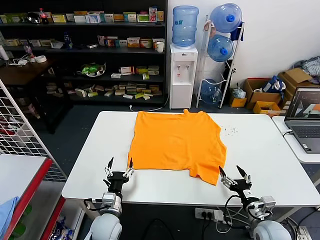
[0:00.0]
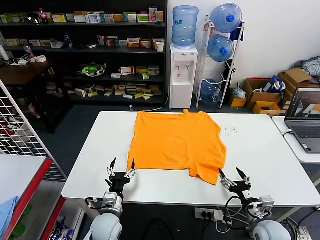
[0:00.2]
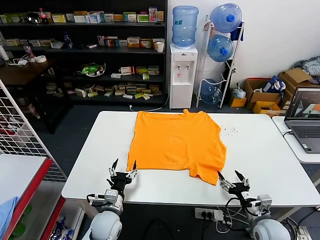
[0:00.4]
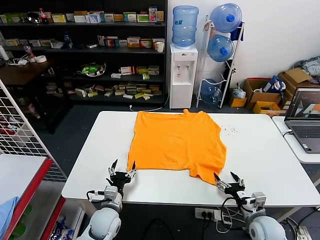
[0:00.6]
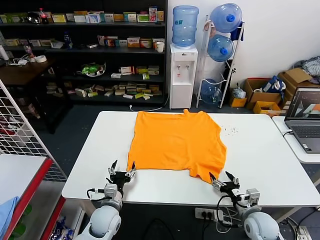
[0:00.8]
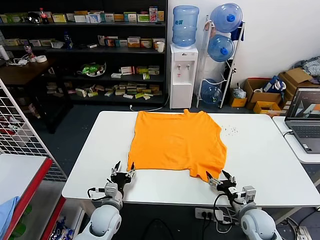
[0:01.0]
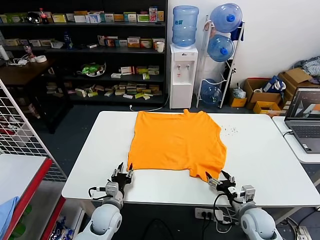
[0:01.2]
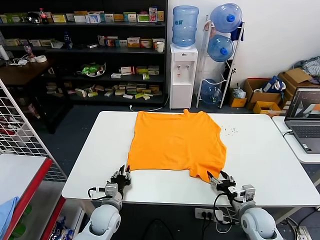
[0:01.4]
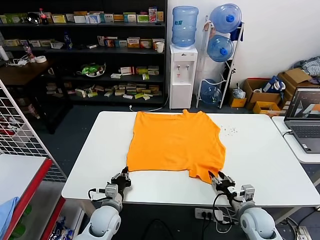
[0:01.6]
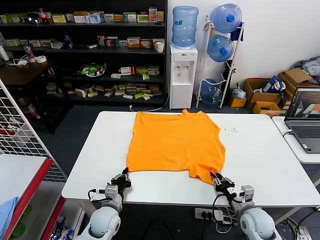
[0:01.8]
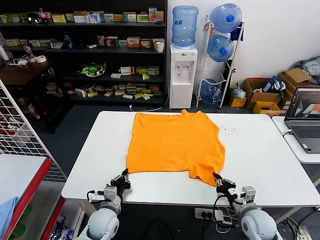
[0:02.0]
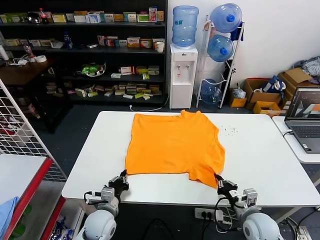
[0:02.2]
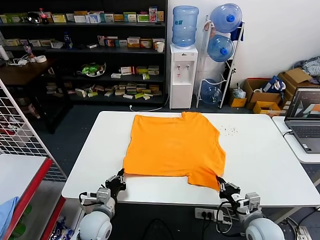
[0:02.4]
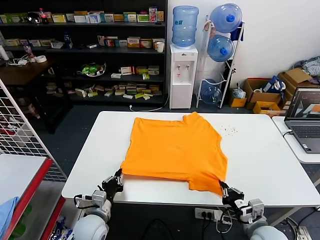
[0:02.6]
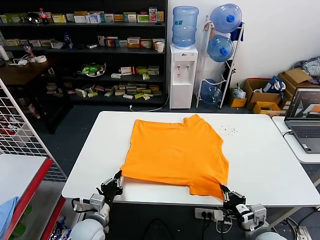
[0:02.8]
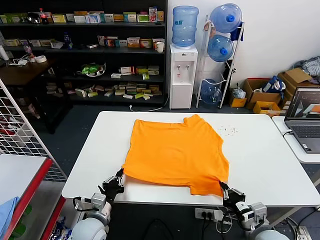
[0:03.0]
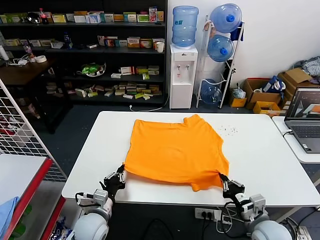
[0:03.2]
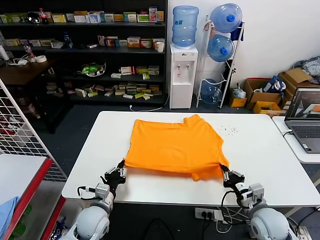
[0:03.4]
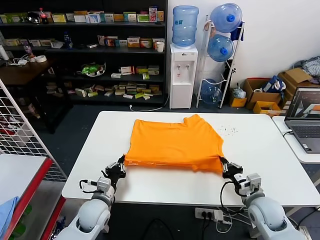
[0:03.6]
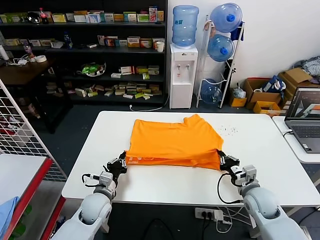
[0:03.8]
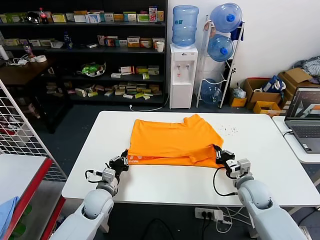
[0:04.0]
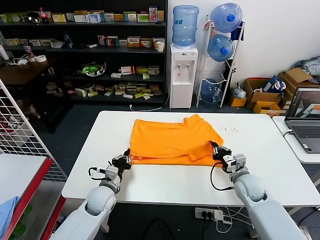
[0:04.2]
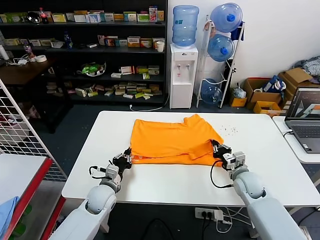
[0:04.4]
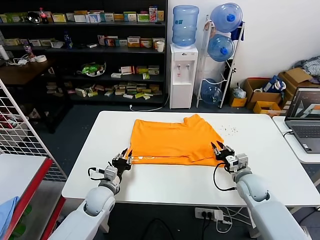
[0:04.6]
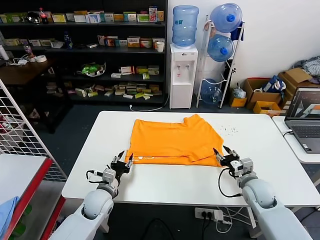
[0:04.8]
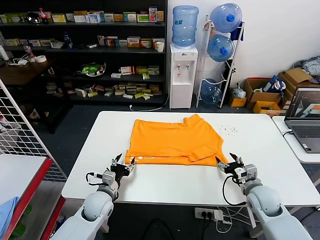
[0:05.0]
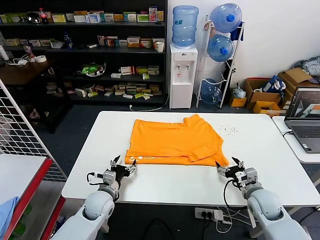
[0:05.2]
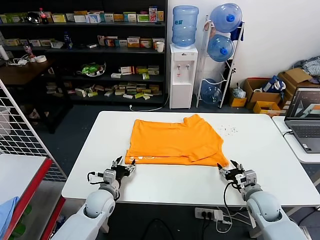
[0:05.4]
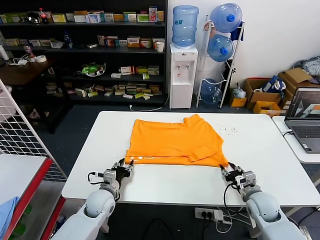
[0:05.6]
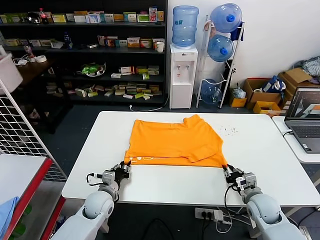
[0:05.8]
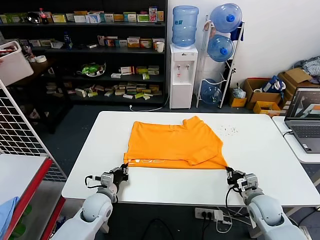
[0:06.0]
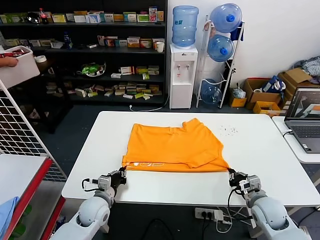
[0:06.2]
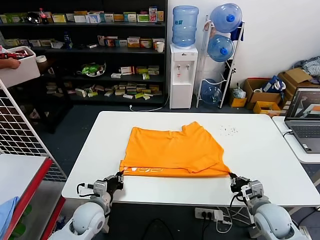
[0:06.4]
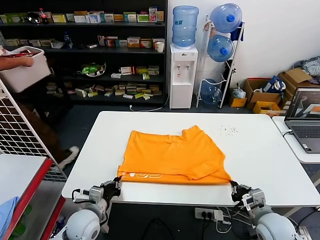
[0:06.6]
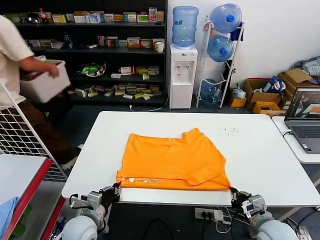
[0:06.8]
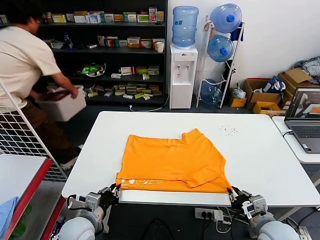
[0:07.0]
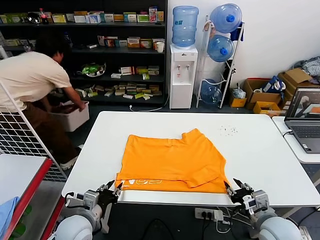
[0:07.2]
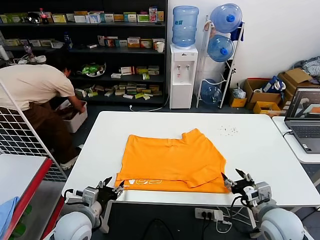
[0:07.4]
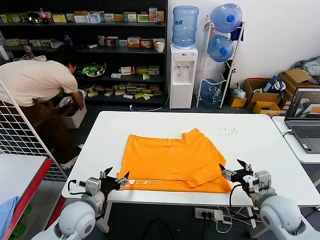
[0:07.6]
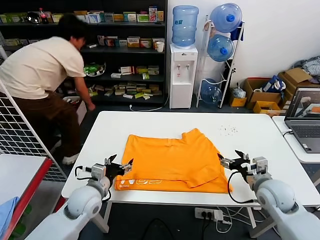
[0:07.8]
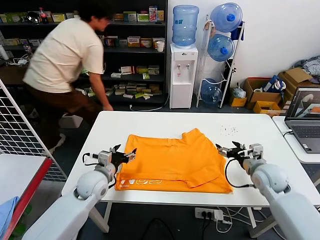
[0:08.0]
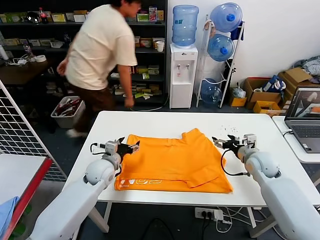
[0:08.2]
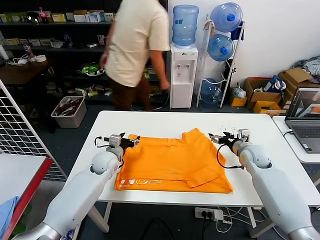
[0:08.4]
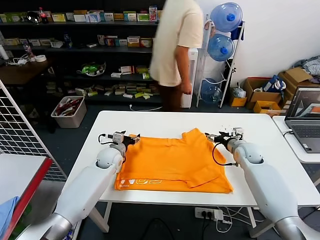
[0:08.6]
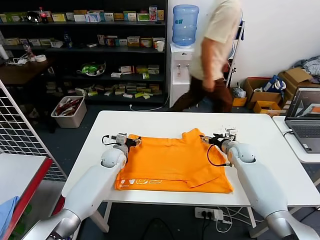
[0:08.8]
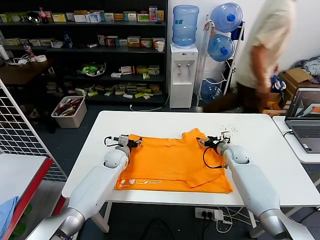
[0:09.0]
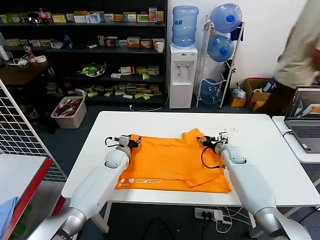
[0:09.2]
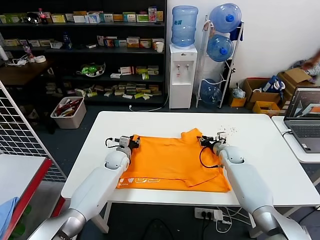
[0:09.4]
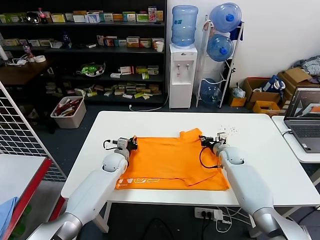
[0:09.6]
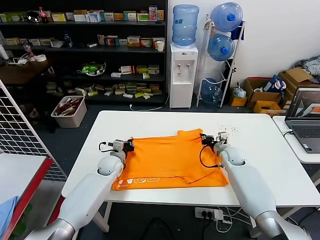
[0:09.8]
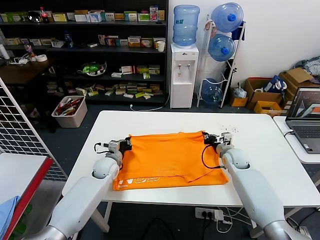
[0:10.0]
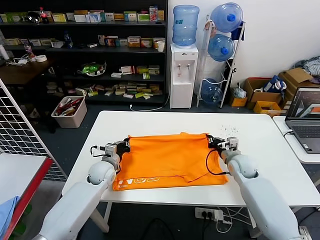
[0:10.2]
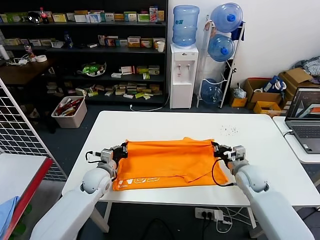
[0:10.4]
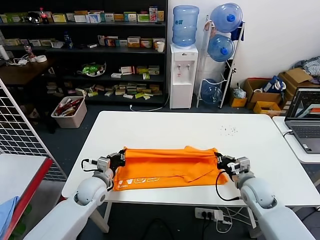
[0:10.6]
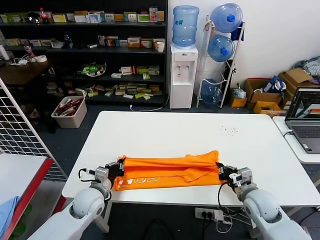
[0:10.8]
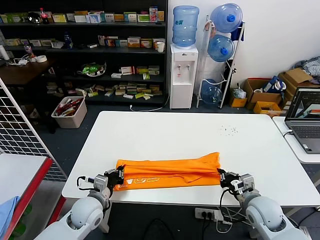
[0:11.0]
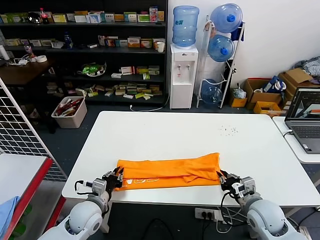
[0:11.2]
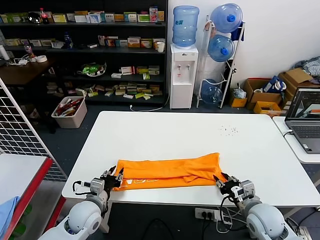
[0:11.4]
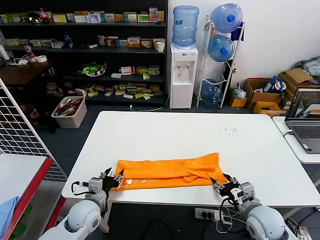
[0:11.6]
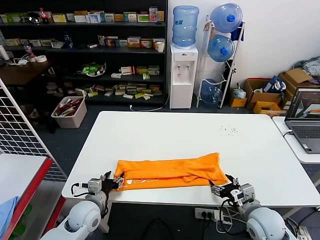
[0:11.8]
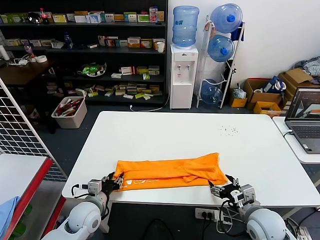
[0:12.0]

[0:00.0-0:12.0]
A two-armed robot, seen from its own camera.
Task of the whole recording: fold and organize the clothes.
Step, 0:00.0 to 0:02.0: use both grippers simultaneously to clamp the lower edge of the clothing fabric.
Step, 0:02.4 to 0:04.4: use both grippers to drag the lower edge of the fabric forward and fold it over the upper edge.
Step, 0:04.6 to 0:07.0: Drag the clothes downward with both gripper.
Step, 0:07.2 to 0:09.6: use both grippers simultaneously to clamp the upper edge of the clothing fabric.
Step, 0:09.8 to 0:11.2: use both grippers to drag the upper edge of the fabric backward and fold it over the lower edge.
0:01.6 to 0:03.0: Both grippers move backward and upward, some 10 cm. The right gripper closes.
0:03.0 to 0:04.4: The right gripper travels forward by about 20 cm. The left gripper goes approximately 10 cm forward.
0:04.4 to 0:06.0: The left gripper opens, then closes once more. The right gripper travels backward by approximately 10 cm, and opens, then closes again.
0:06.0 to 0:07.6: The right gripper travels upward by some 10 cm, goes backward and returns, approximately 10 cm each way, and opens. Meanwhile the left gripper travels upward and backward by roughly 10 cm, and opens its fingers.
0:07.6 to 0:09.0: Both grippers travel together forward, roughly 25 cm.
0:09.0 to 0:10.4: The two grippers go some 10 cm backward. The right gripper closes; the left gripper closes.
0:10.4 to 0:12.0: The grippers both shift backward by approximately 15 cm. The left gripper opens. The right gripper opens its fingers.

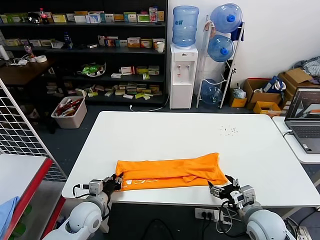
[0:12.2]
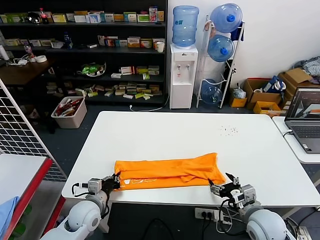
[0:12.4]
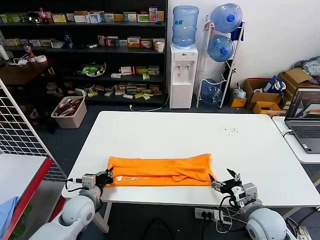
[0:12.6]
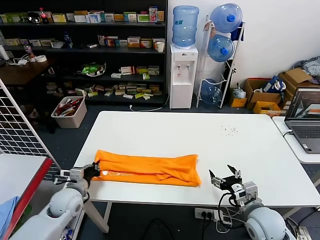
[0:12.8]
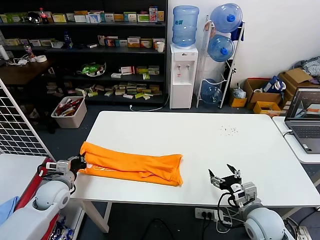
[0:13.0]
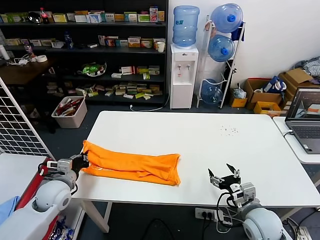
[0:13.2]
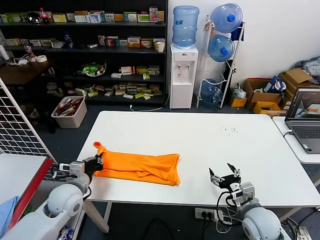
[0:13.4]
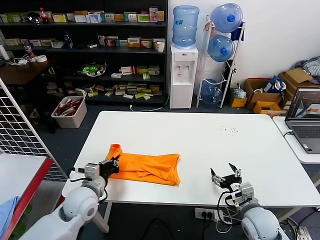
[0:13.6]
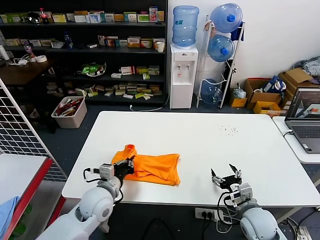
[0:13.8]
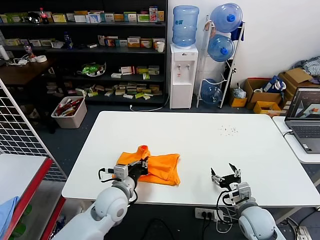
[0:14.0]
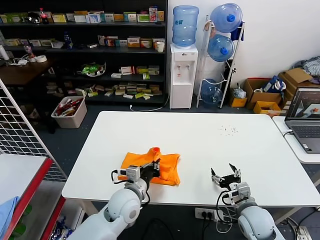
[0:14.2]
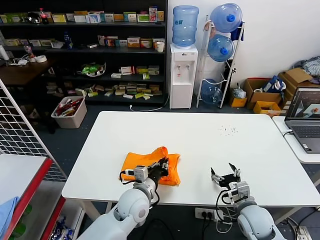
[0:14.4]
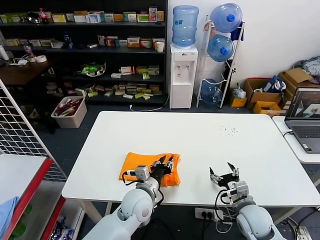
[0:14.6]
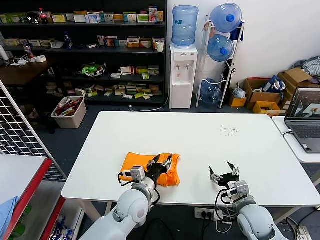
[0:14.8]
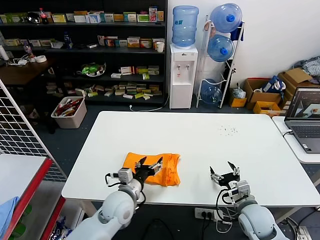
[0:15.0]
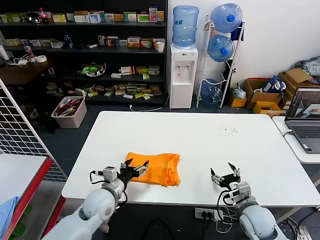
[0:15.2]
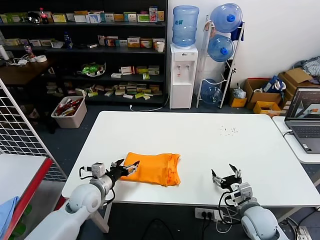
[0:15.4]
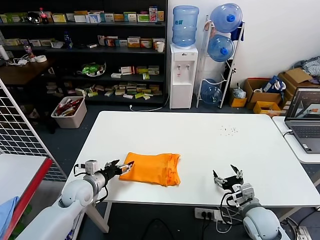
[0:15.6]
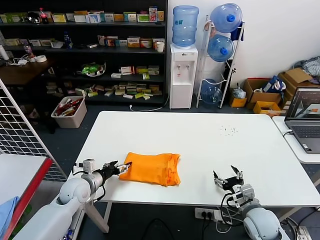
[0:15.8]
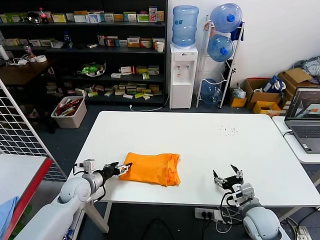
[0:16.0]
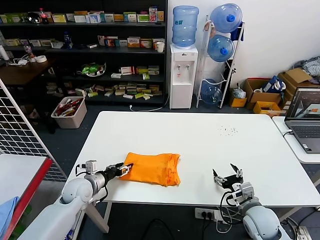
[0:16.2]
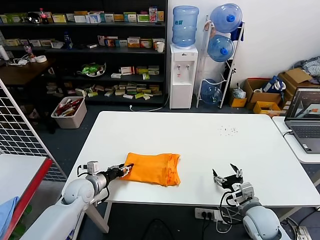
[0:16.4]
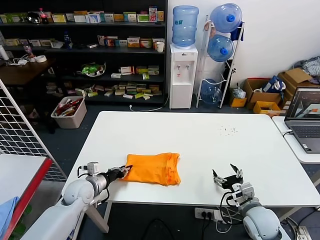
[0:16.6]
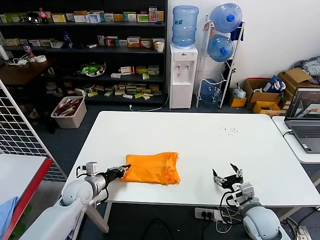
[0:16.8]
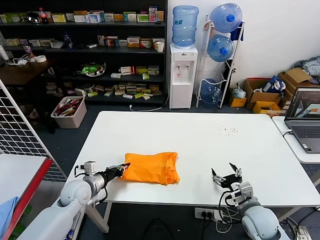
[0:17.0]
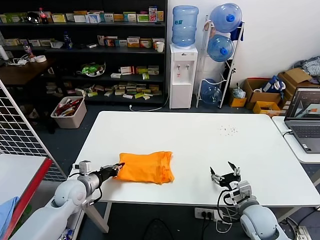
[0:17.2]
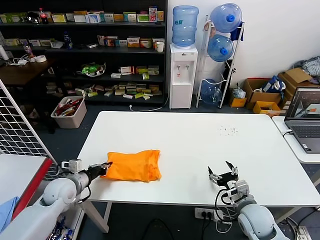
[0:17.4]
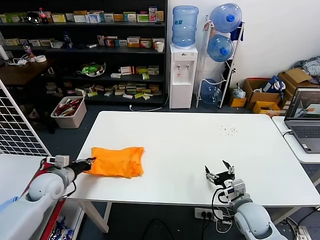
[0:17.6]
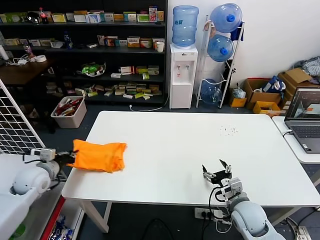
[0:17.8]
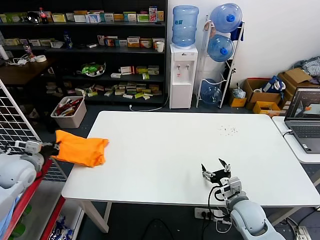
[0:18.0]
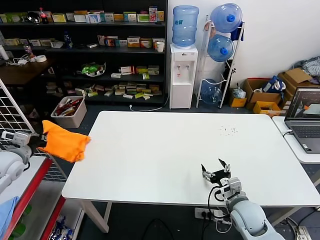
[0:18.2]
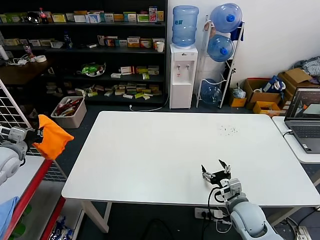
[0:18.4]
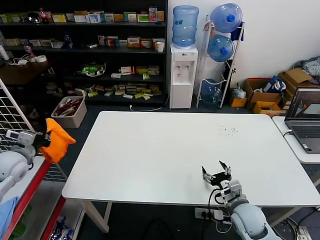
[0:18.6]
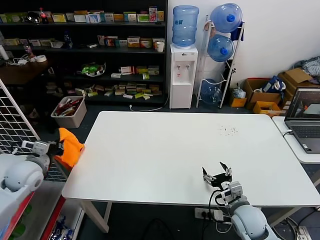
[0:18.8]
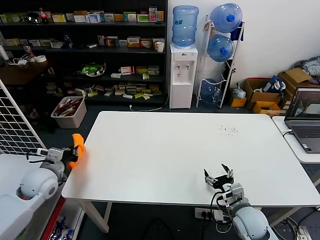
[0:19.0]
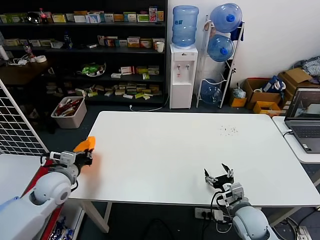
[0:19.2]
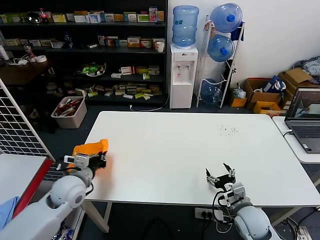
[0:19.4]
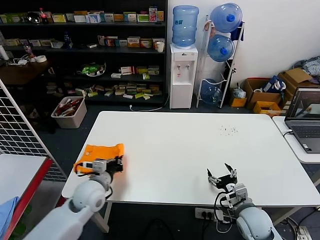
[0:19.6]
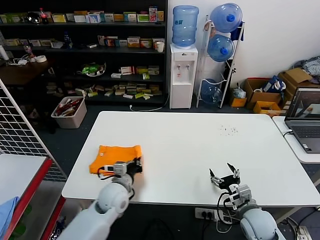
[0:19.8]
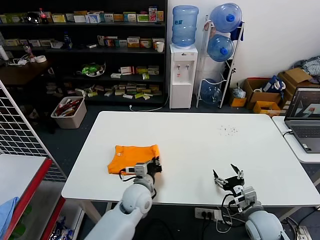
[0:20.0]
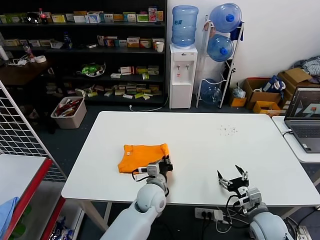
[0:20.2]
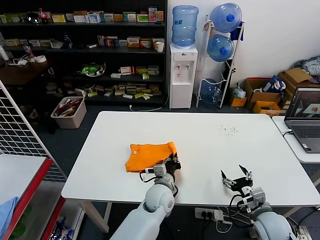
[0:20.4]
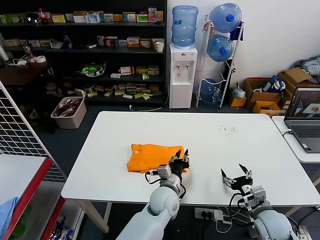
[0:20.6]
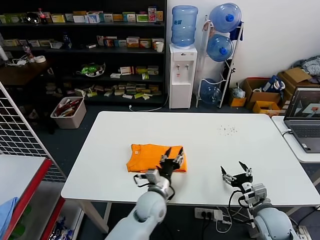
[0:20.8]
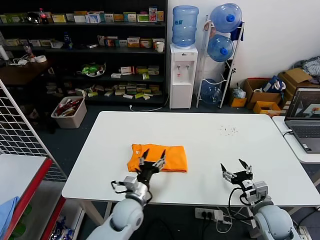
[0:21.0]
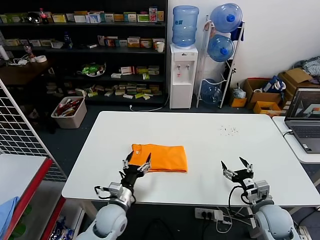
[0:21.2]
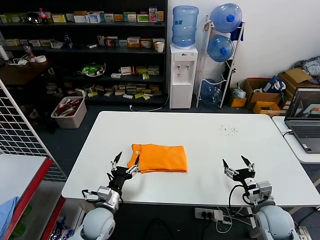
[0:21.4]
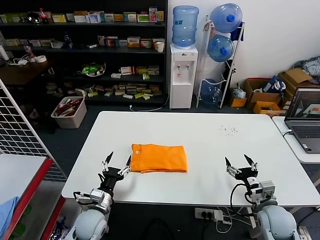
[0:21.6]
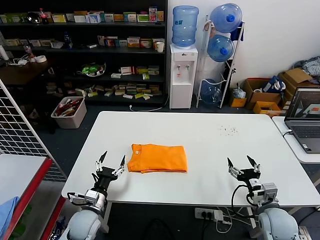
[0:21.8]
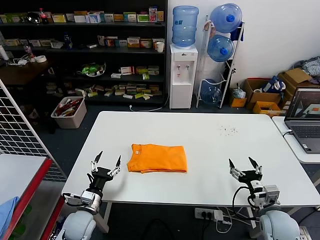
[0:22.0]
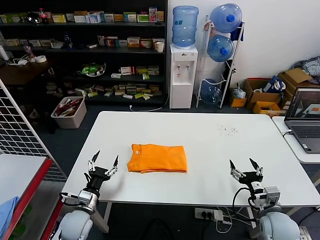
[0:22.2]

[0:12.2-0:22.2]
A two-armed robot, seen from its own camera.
Task of the whole recording: fold and organize the clothes.
Step, 0:12.4 to 0:14.4: use the left gripper to drag the left edge of the fabric to the left and folds it over the right edge.
Step, 0:14.6 to 0:20.4: Flip the folded clothes over with left gripper.
0:12.2 to 0:13.6: The left gripper moves upward, roughly 10 cm, and moves some 10 cm to the left and comes back.
0:13.6 to 0:15.0: The left gripper moves to the right, about 15 cm, and opens up.
0:15.0 to 0:16.4: The left gripper travels to the left by approximately 20 cm.
0:16.4 to 0:18.0: The left gripper is displaced to the left and upward by approximately 20 cm, and closes up.
0:18.0 to 0:19.4: The left gripper shifts some 15 cm to the right.
0:19.4 to 0:20.8: The right gripper heads to the right, covering some 5 cm. Meanwhile the left gripper is displaced to the right by roughly 30 cm, and opens.
0:20.8 to 0:22.2: The left gripper shifts about 25 cm to the left, and opens up.
